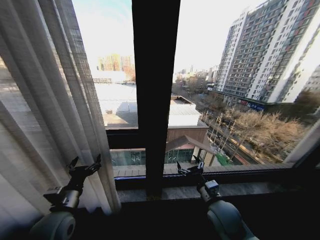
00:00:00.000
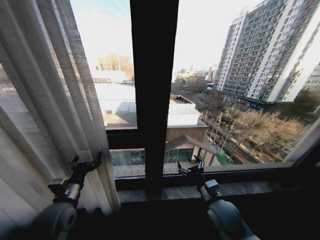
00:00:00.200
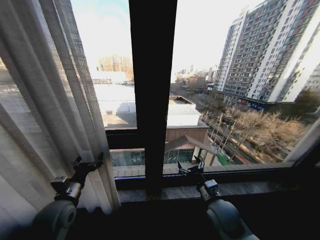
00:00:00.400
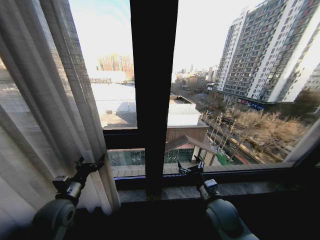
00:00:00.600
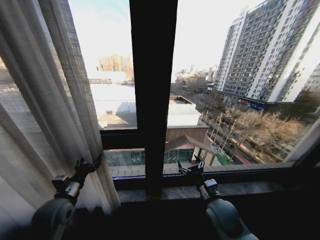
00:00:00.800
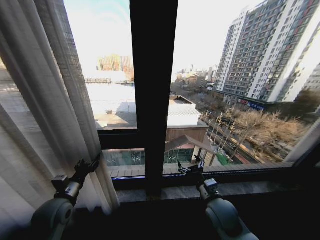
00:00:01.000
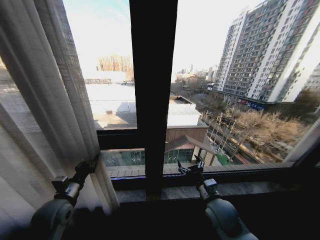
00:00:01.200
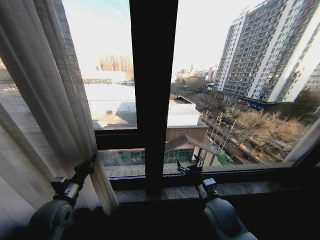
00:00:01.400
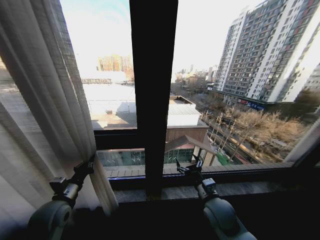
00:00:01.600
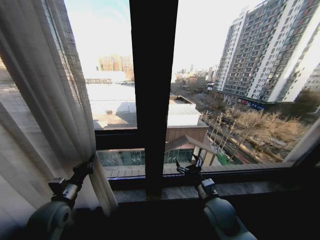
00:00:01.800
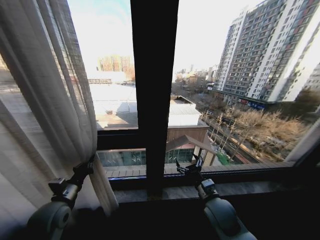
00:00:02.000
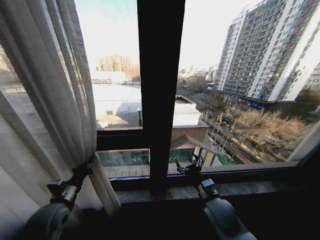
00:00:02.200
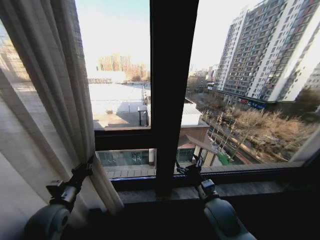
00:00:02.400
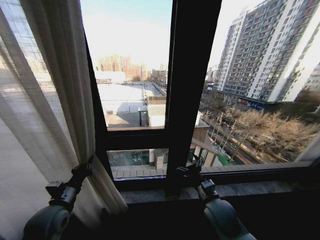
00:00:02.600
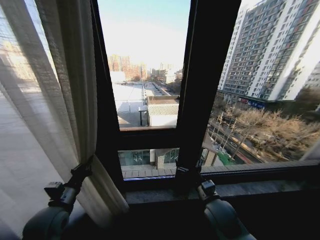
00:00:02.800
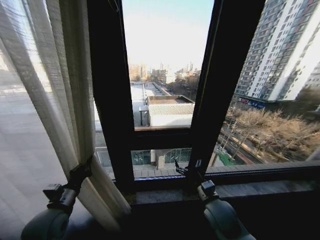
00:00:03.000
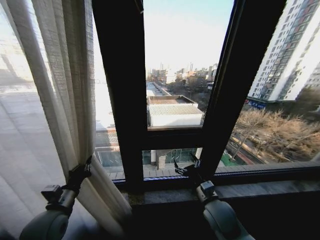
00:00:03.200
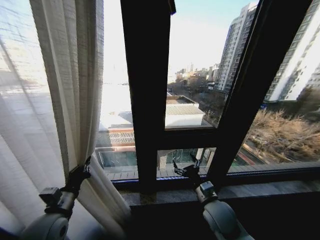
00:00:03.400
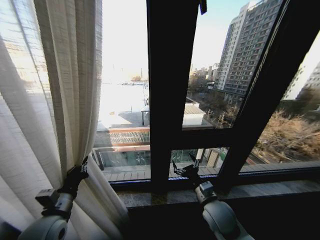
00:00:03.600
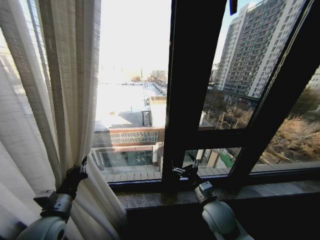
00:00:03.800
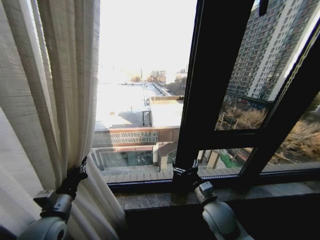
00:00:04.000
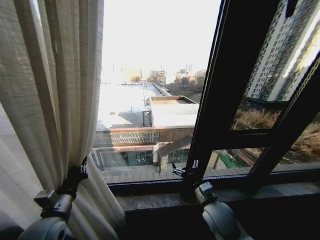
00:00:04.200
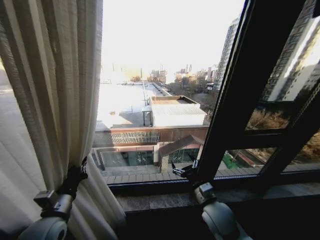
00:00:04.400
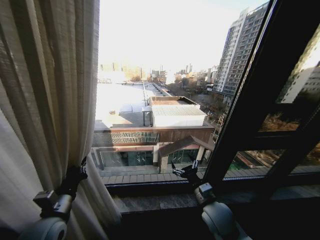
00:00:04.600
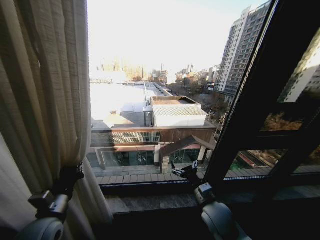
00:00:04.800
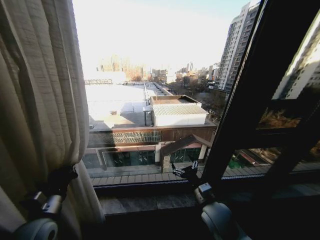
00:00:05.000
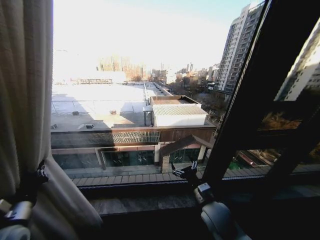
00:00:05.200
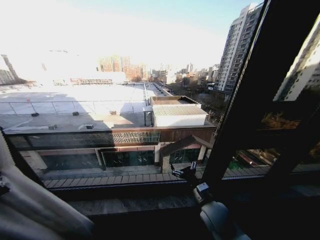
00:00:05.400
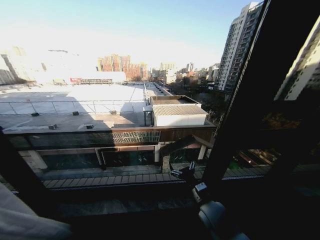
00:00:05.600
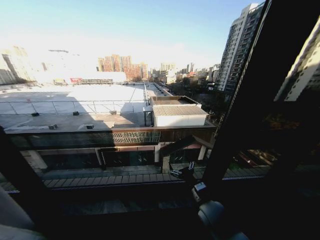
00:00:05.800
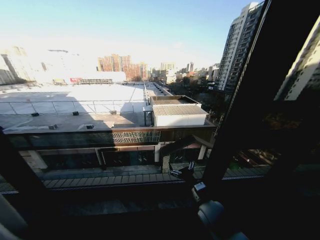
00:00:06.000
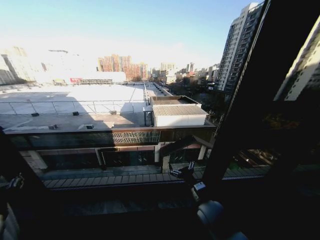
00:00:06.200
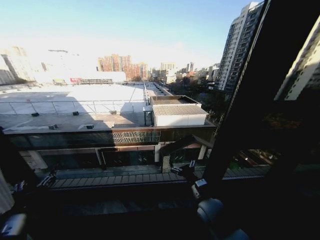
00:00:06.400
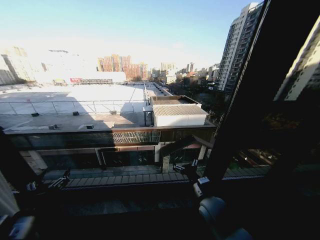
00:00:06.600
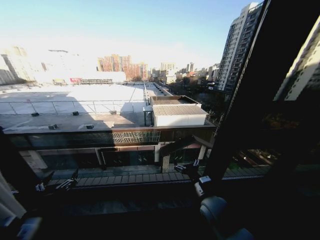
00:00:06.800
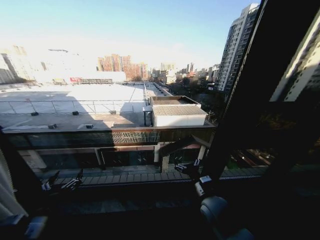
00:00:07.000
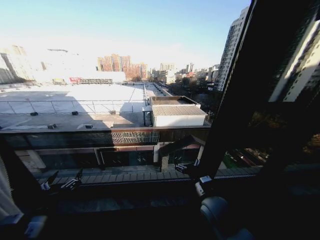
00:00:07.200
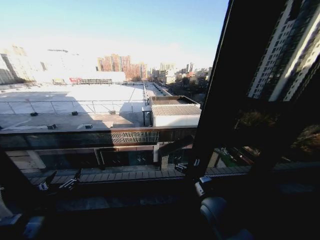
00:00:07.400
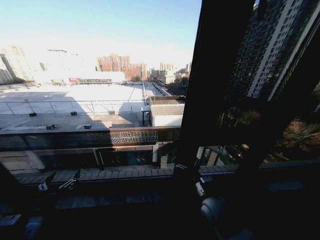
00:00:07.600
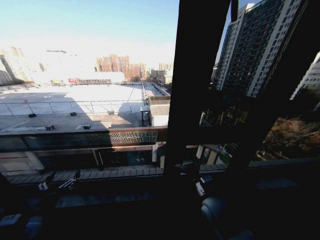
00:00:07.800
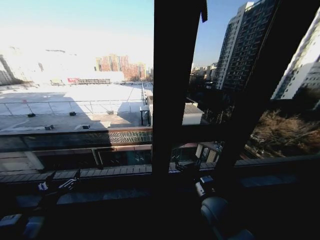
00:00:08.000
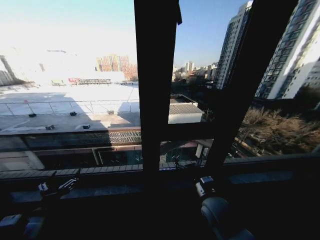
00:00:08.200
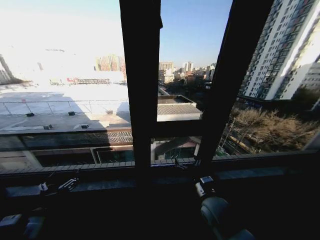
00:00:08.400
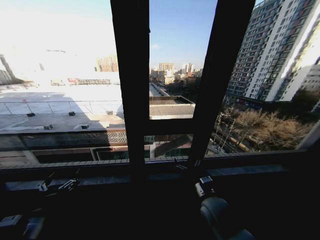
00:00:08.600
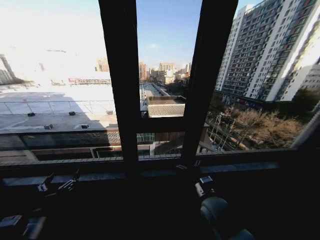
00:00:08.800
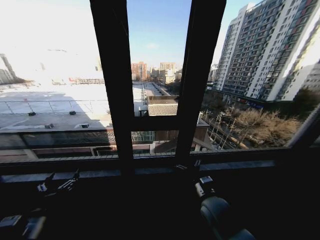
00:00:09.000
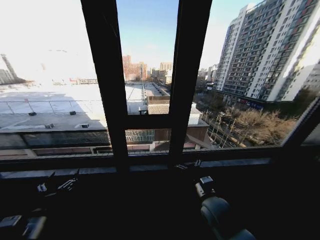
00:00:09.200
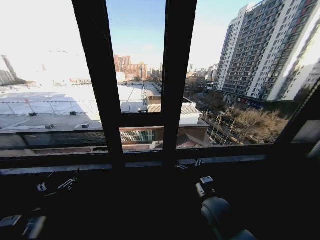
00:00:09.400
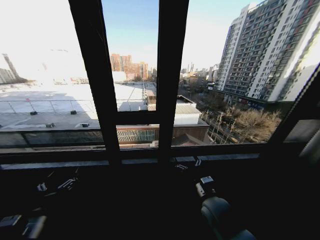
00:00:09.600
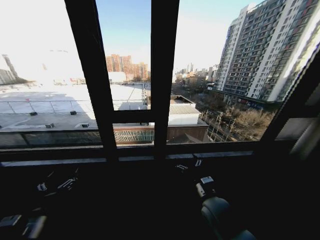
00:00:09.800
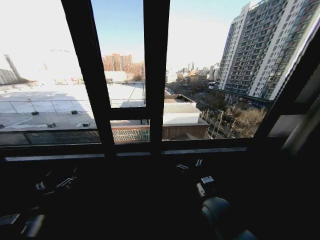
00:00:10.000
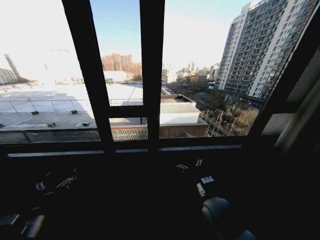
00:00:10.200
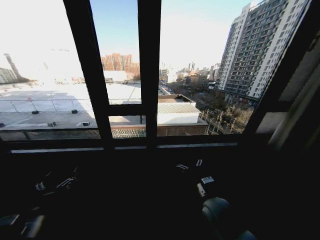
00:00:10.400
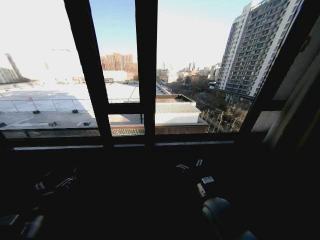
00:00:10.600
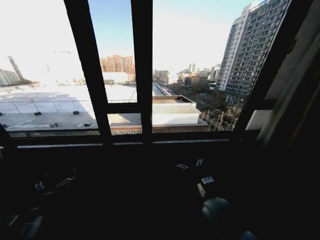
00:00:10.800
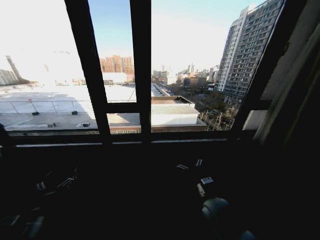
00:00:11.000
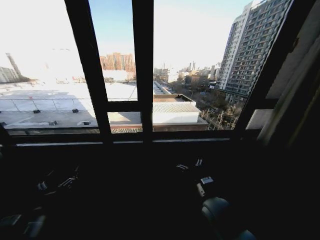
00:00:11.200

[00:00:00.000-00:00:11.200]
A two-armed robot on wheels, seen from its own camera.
Task of the whole recording: Open the curtains by pulling them apart, changing their state from closed to fully open.
00:00:00.000 to 00:00:01.600: The left gripper shifts by about 5 cm, and closes.
00:00:04.800 to 00:00:06.400: The left gripper travels to the left and backward by some 10 cm, and opens.
